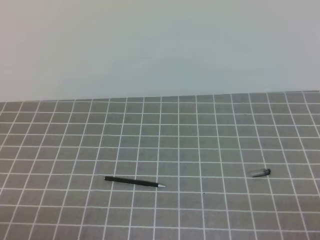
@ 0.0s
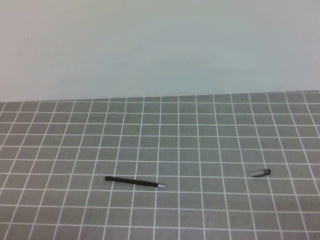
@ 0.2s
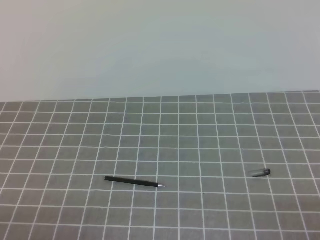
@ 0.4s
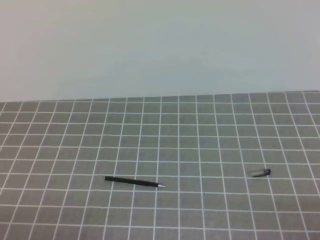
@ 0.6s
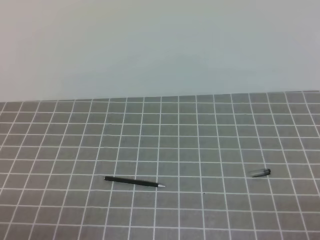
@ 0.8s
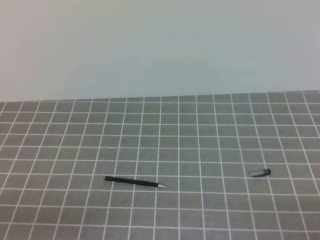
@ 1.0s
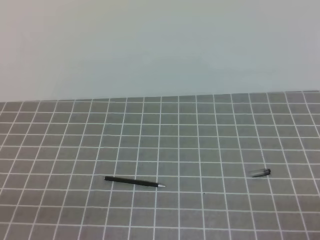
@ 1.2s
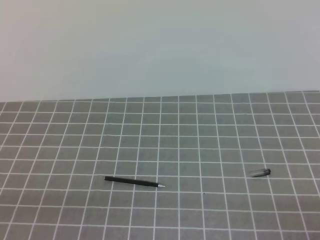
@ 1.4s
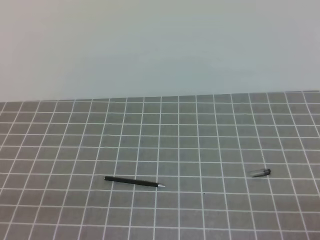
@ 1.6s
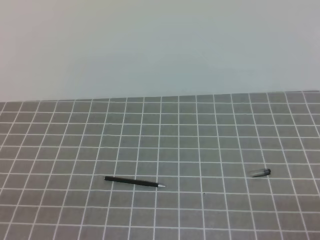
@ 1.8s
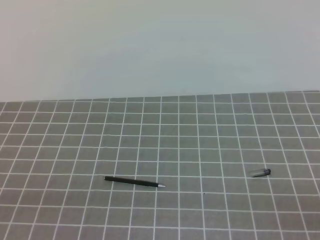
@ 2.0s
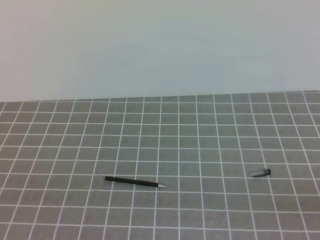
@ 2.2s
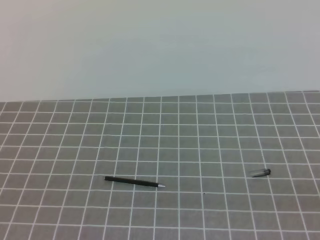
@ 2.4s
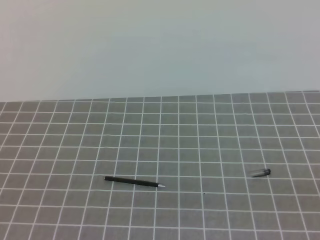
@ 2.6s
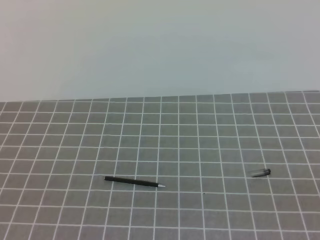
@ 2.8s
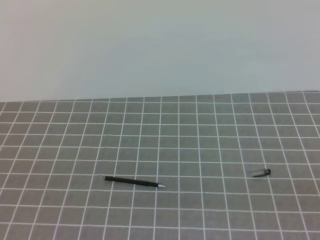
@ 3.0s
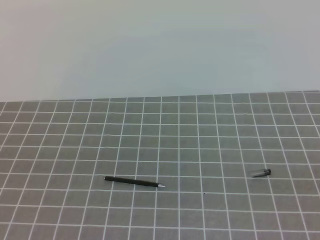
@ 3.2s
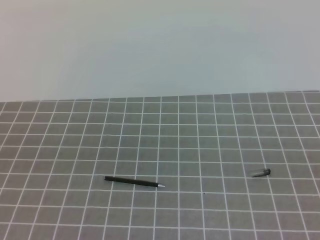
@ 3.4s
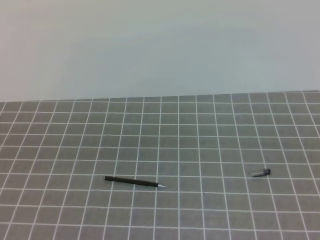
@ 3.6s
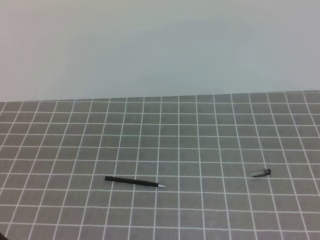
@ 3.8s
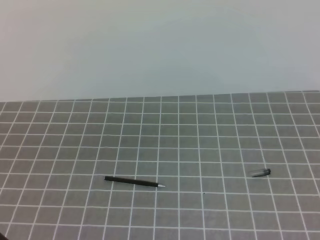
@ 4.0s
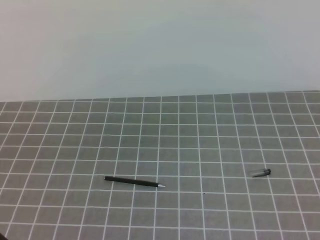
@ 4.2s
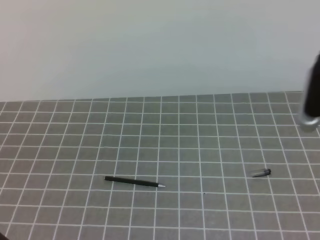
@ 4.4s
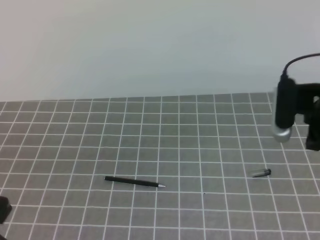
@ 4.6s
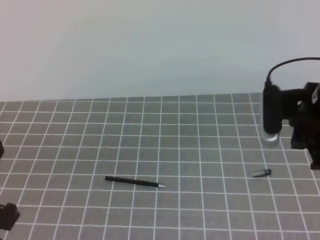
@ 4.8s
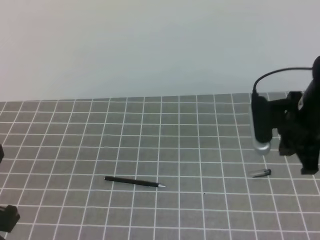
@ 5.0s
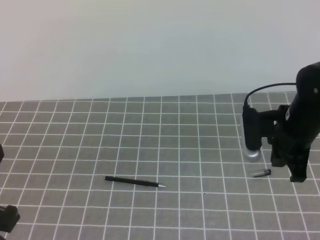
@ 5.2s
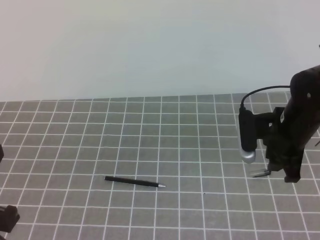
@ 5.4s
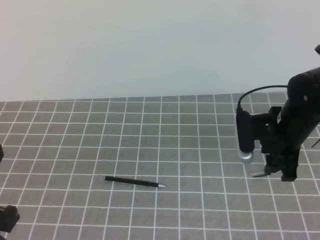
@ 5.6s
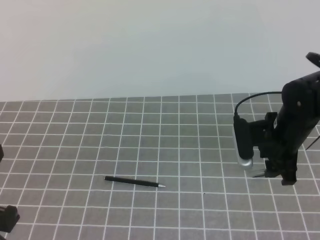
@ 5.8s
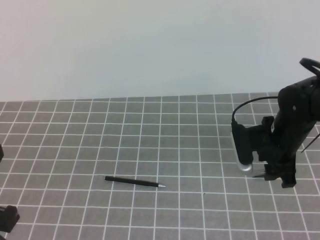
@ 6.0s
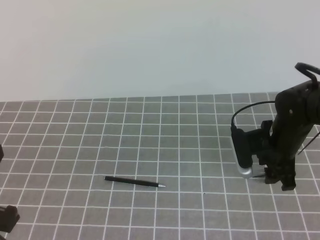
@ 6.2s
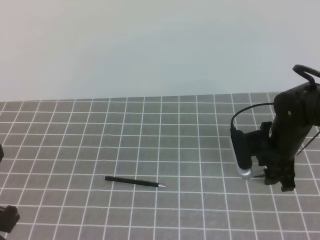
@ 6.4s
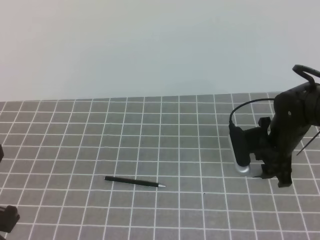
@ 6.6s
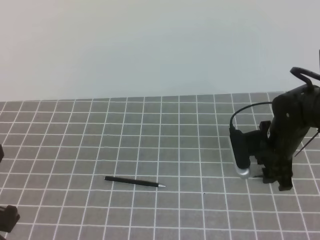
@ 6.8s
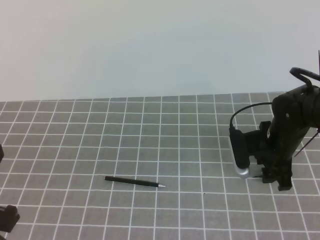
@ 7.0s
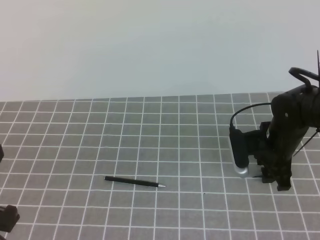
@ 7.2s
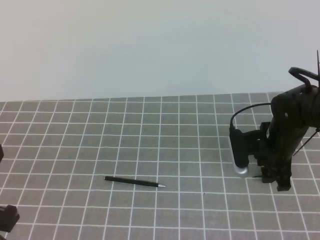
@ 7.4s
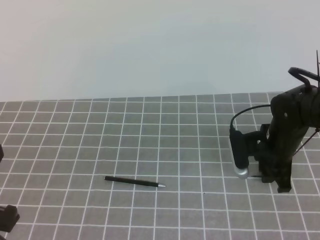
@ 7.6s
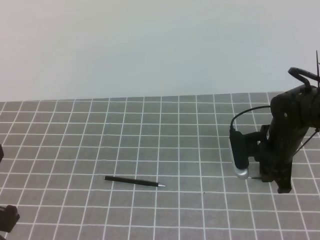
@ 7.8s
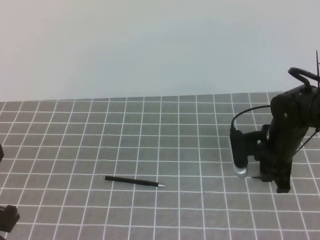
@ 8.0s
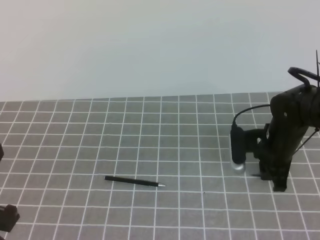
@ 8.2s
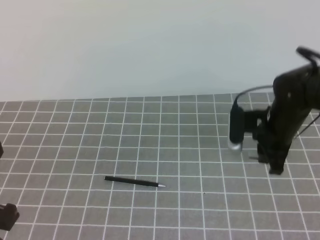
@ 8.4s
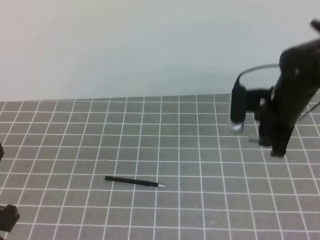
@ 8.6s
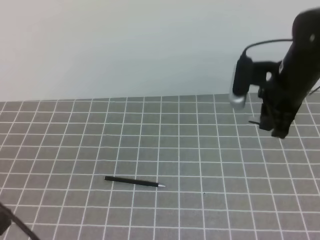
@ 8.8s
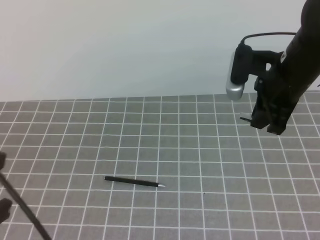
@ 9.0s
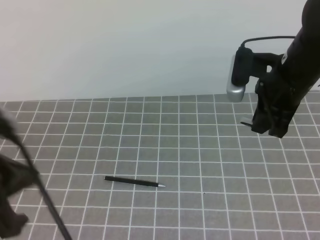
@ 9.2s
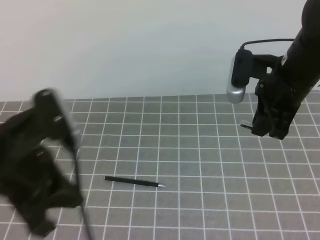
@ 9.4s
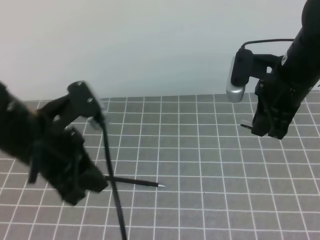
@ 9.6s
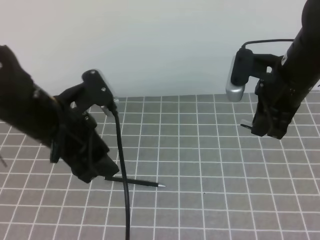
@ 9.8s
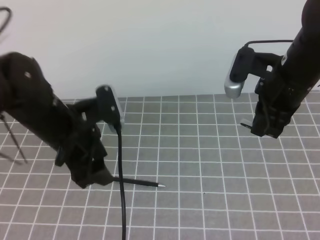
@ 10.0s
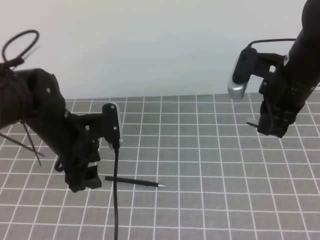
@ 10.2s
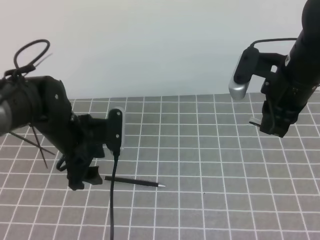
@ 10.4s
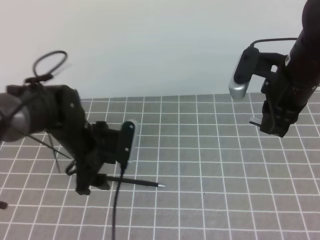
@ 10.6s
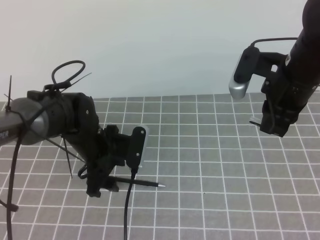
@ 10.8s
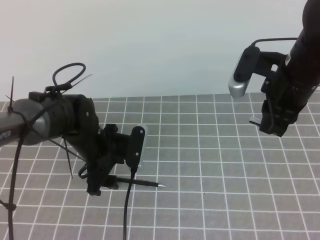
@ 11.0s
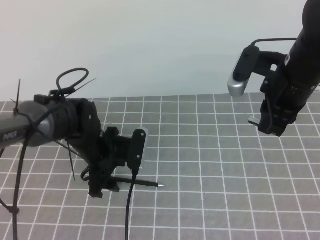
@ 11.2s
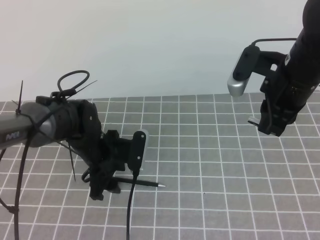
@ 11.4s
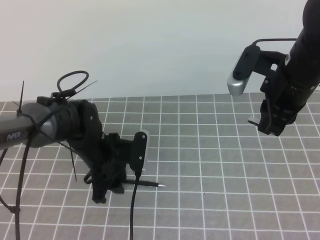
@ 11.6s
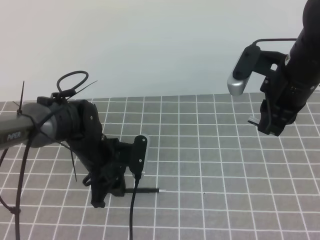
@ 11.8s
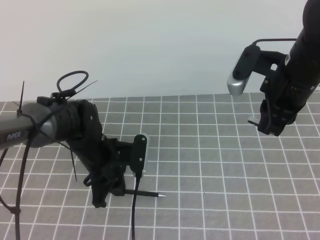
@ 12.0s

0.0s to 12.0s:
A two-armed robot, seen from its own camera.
Task of the whole recording: on the grey tablecloth, hold the pen cap in one hand and the pen in the other, then cover the pen cap.
Step, 0.0s to 6.6s: Grab the pen cap with the right hand.
Step, 6.8s to 11.8s: Grab the pen barrel with the left hand.
3.0s to 4.4s: The right gripper shifts approximately 20 cm forward.
4.4s to 6.0s: The right gripper shifts roughly 20 cm downward and forward, and opens.
6.0s to 7.6s: The right gripper closes.
7.6s to 9.0s: The right gripper goes roughly 15 cm upward, and closes up.
9.0s to 10.4s: The left gripper shifts some 25 cm forward and downward, and opens.
10.4s to 12.0s: The left gripper moves downward, some 5 cm, and closes its fingers.

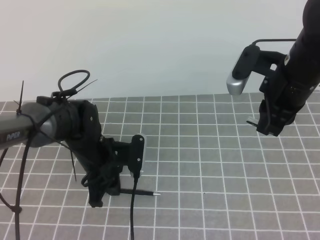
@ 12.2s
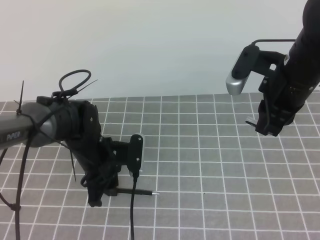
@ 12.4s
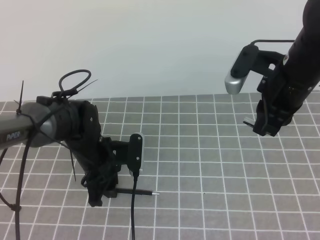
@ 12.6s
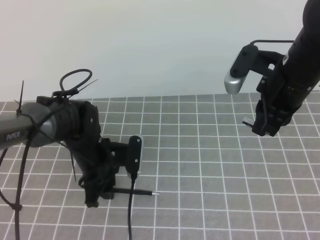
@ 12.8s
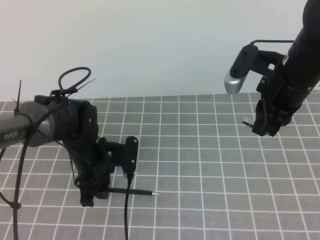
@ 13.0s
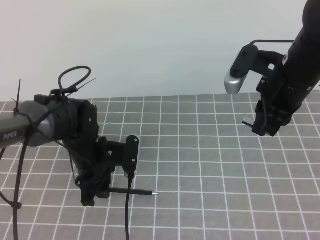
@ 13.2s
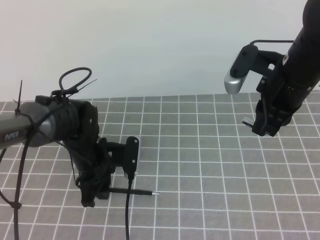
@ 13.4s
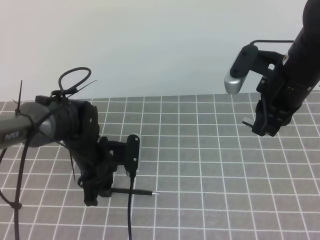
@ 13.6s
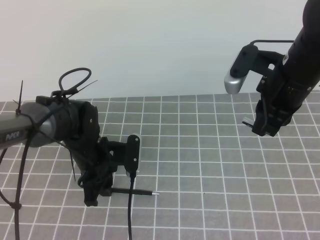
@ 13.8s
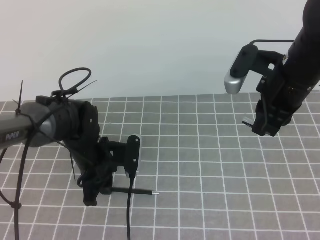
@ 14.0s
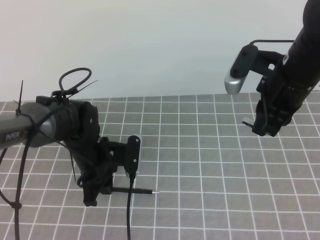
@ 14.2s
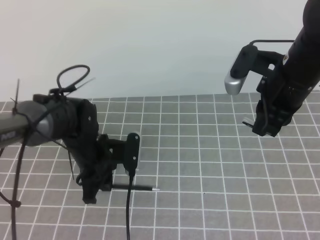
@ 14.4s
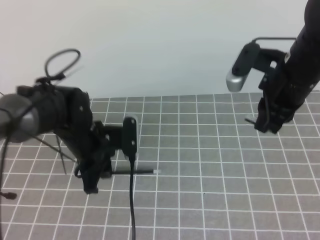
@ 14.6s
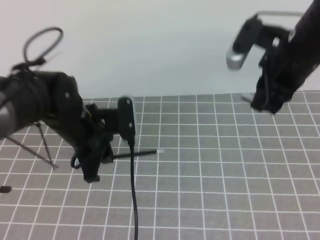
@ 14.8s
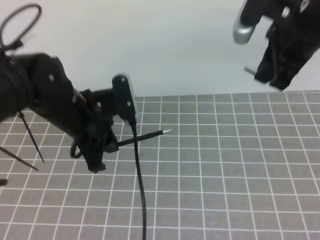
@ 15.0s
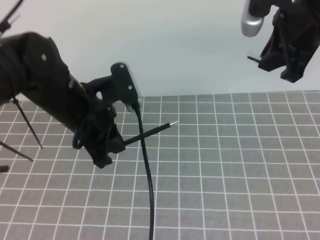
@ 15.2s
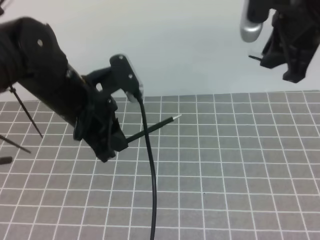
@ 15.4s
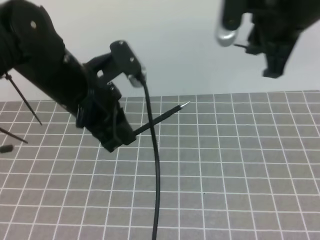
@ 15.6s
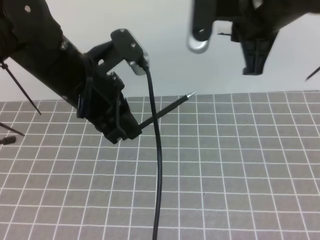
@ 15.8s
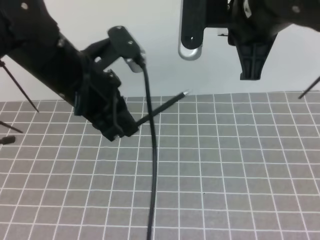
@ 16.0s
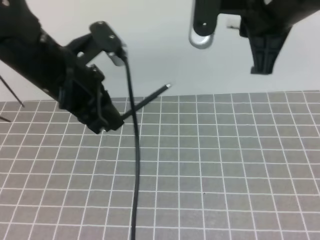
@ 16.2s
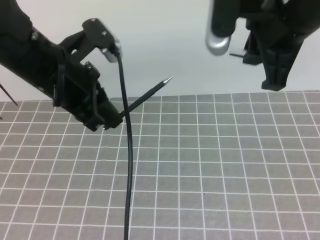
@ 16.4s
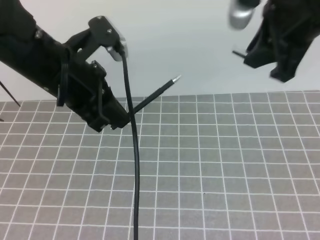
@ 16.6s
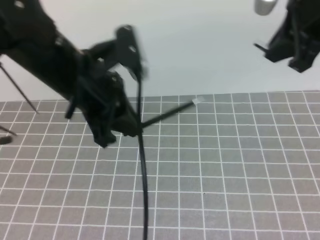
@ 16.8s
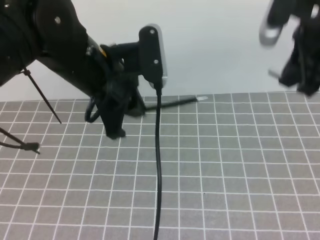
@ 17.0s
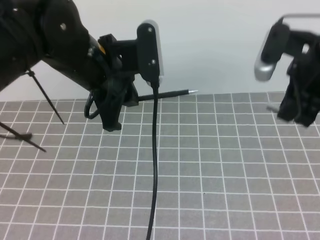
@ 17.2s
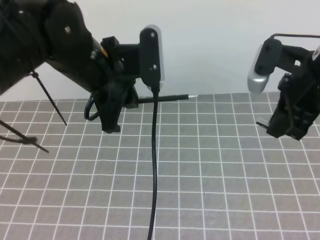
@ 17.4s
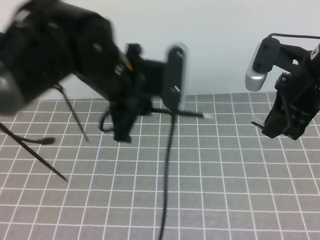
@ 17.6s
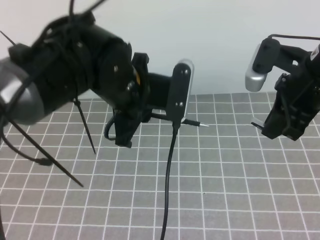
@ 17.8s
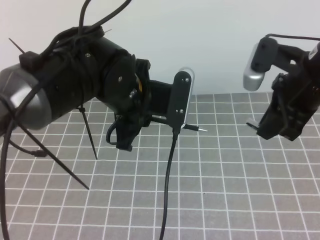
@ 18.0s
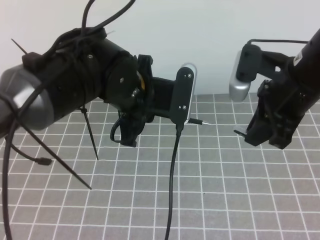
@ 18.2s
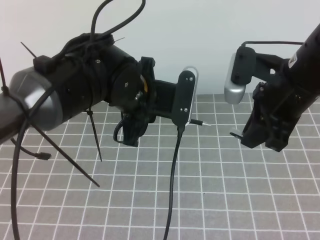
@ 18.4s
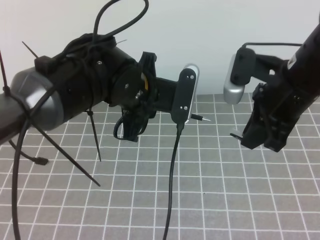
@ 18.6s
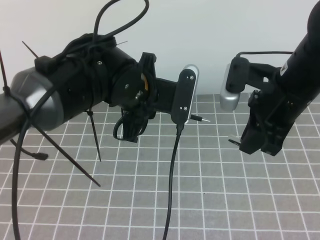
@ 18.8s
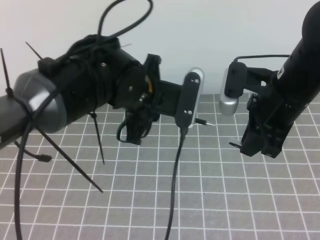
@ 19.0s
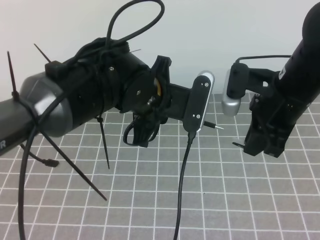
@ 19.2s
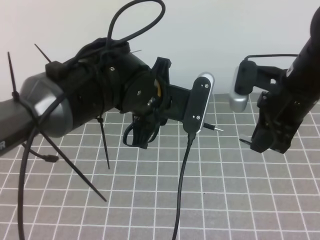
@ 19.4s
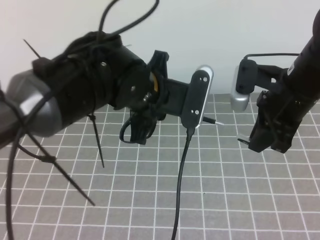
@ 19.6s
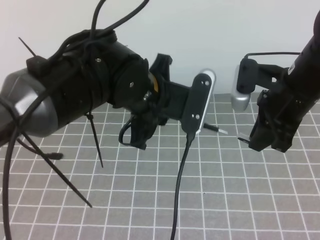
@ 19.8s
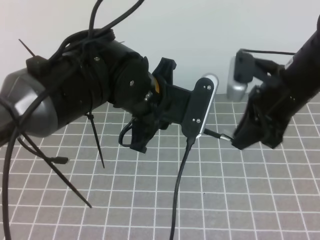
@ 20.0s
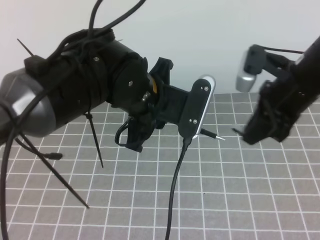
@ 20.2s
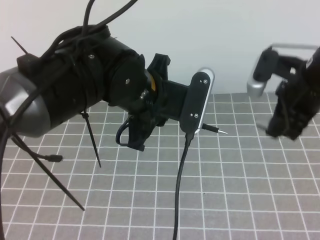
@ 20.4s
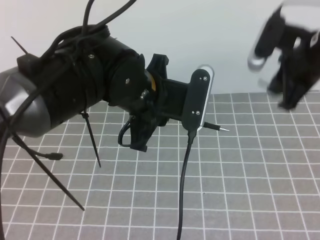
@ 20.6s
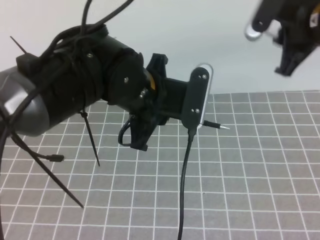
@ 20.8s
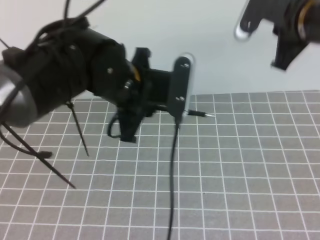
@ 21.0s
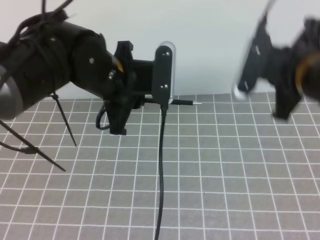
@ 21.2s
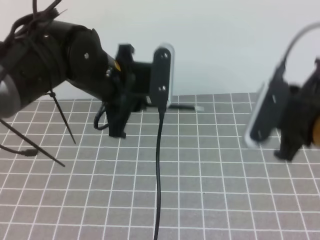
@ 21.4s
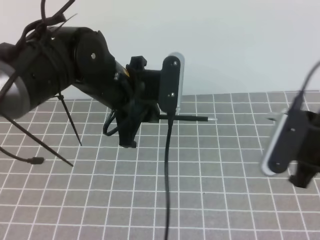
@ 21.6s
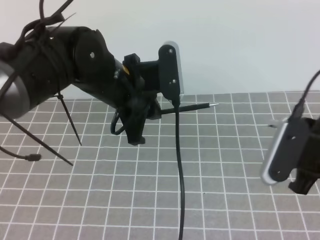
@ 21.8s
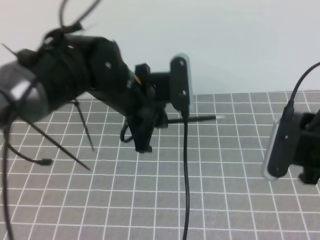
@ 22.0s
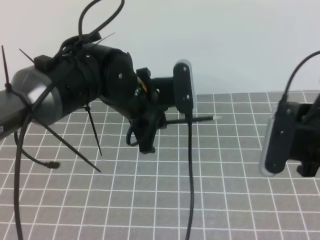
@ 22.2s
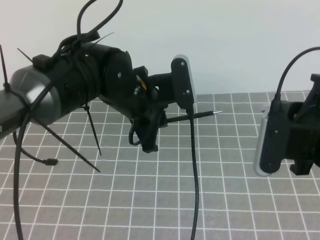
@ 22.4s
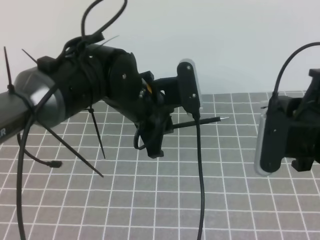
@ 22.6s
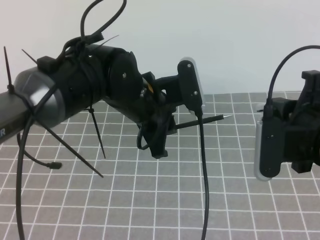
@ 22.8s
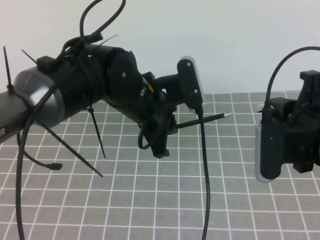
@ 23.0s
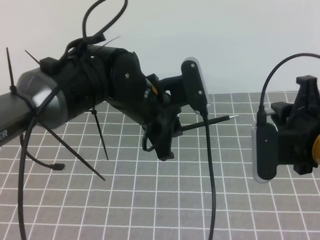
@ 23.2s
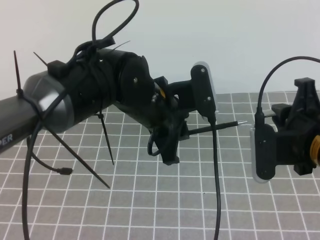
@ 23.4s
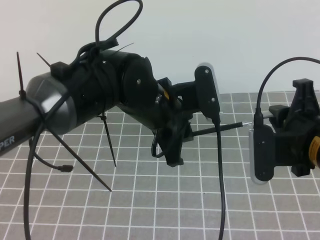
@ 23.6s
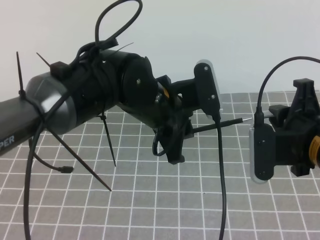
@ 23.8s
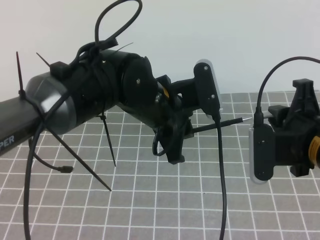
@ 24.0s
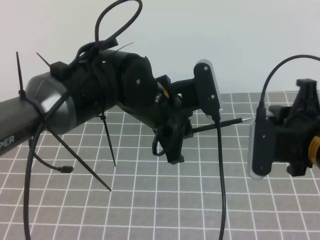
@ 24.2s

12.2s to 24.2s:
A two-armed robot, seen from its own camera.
Task of the whole recording: on the grey tablecloth, hold the pen cap in one hand and the pen in the other, then cover the pen cap.
12.2s to 13.8s: The grippers stay close to where they were, moving slightly.
13.8s to 15.2s: Both grippers travel together upward, approximately 10 cm.
15.2s to 16.6s: The left gripper travels upward by roughly 5 cm.
16.6s to 18.2s: The left gripper goes some 10 cm to the right. The right gripper heads downward, covering about 10 cm.
18.2s to 19.8s: The grippers stay close to where they were, moving slightly.
21.2s to 22.6s: The right gripper shifts roughly 10 cm backward and downward.
